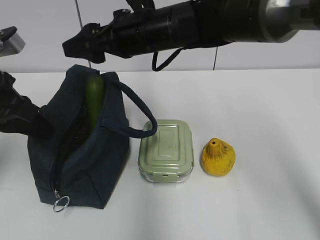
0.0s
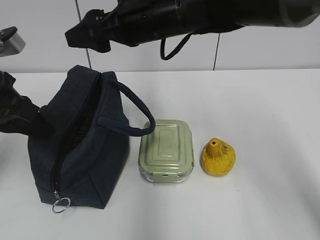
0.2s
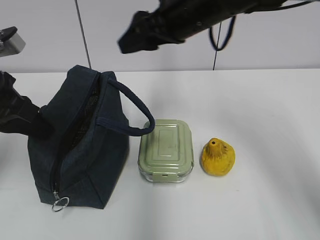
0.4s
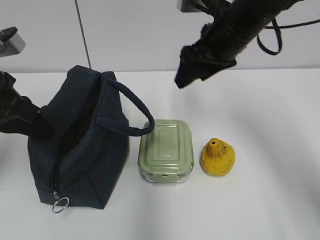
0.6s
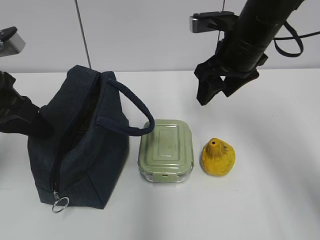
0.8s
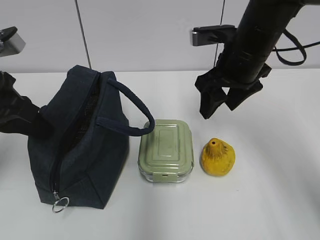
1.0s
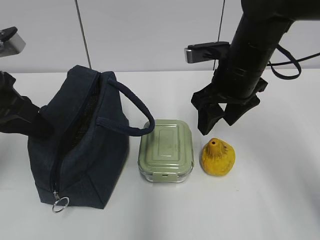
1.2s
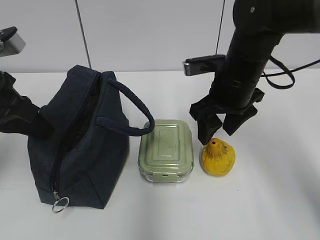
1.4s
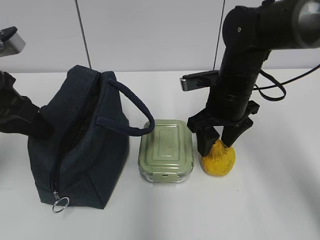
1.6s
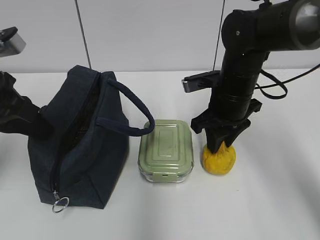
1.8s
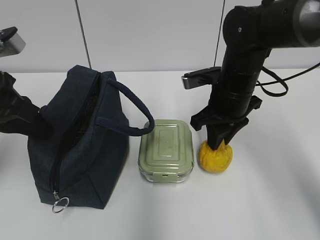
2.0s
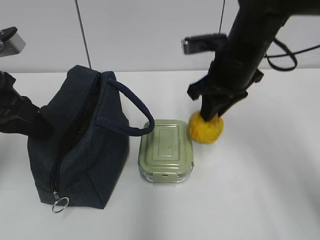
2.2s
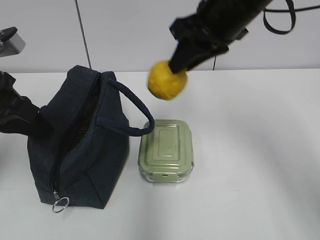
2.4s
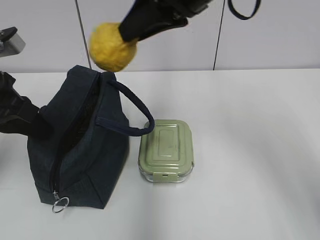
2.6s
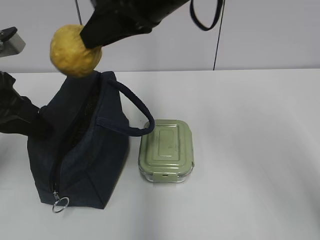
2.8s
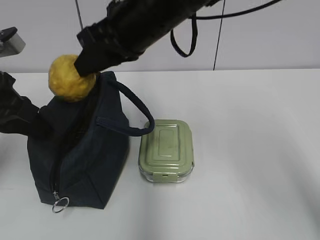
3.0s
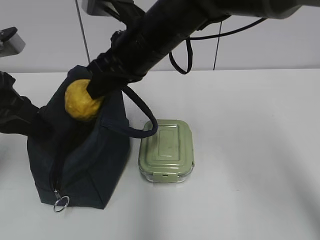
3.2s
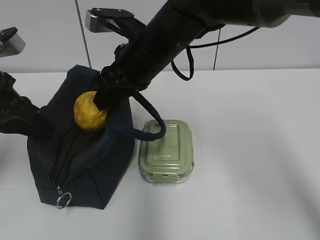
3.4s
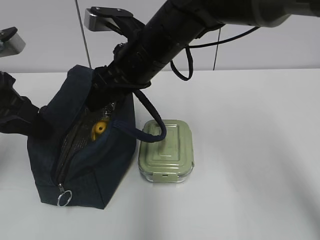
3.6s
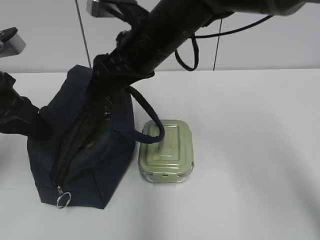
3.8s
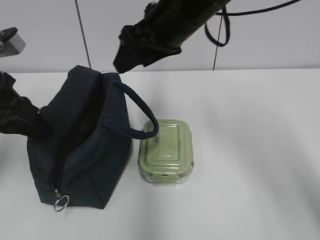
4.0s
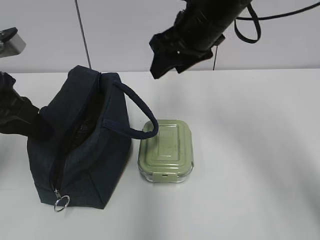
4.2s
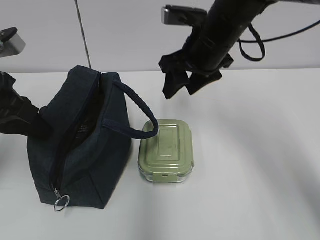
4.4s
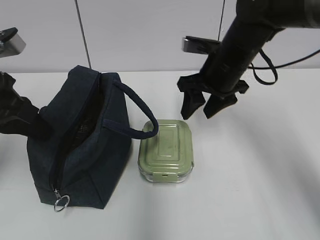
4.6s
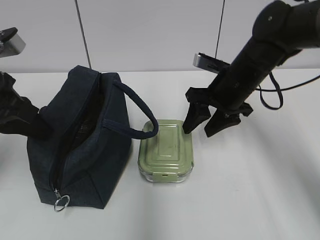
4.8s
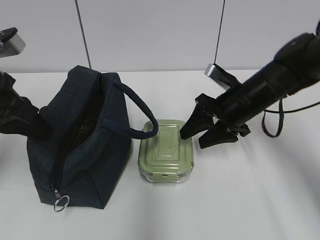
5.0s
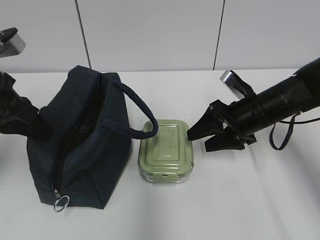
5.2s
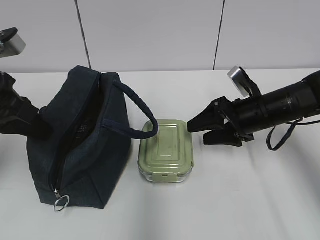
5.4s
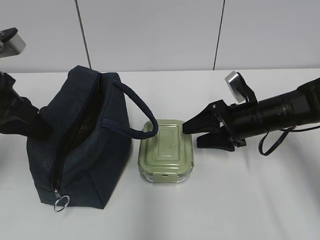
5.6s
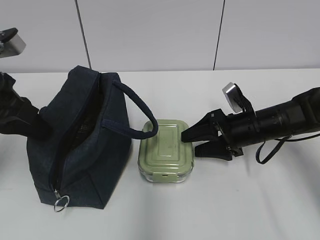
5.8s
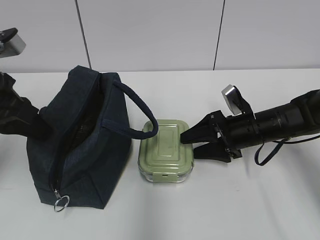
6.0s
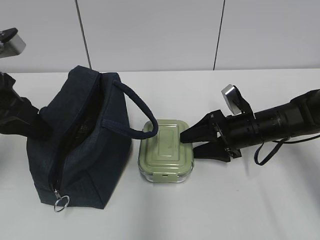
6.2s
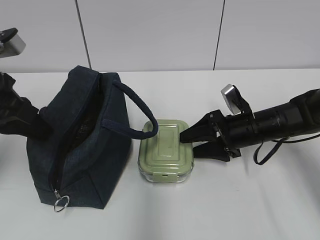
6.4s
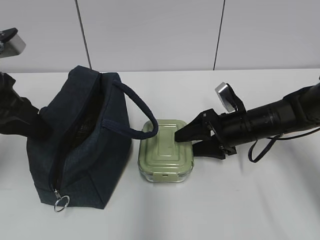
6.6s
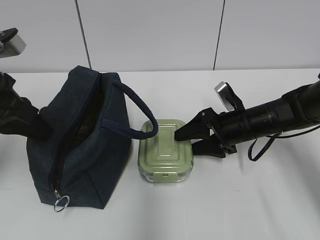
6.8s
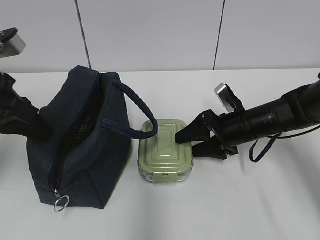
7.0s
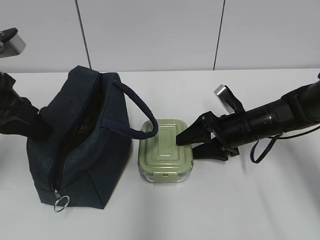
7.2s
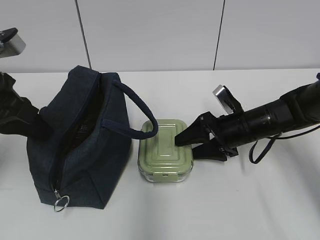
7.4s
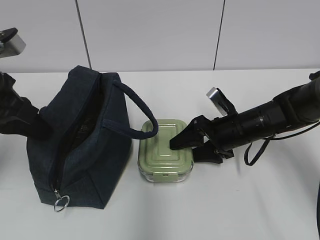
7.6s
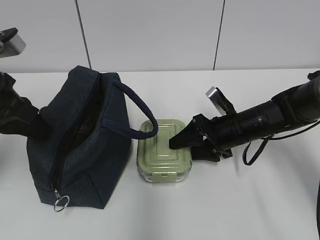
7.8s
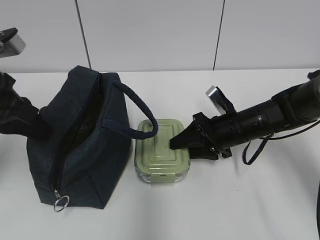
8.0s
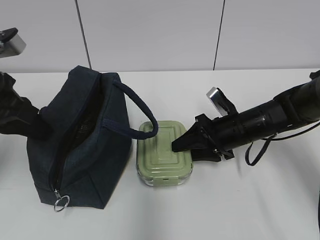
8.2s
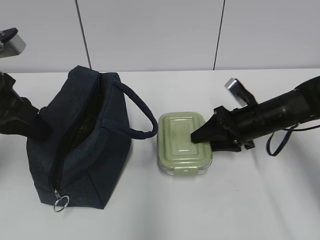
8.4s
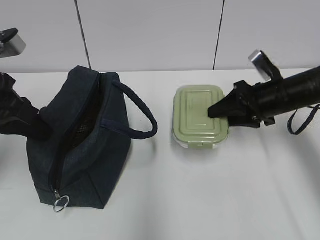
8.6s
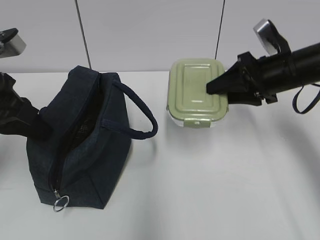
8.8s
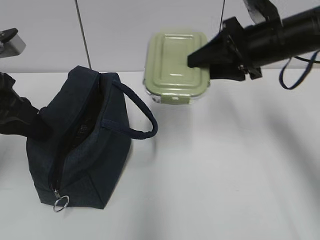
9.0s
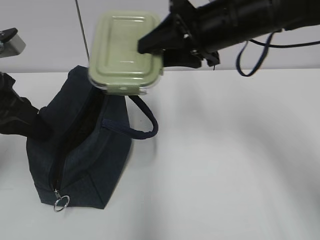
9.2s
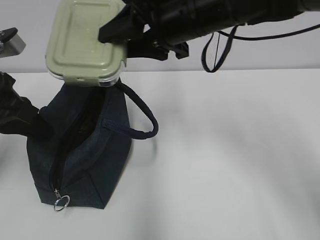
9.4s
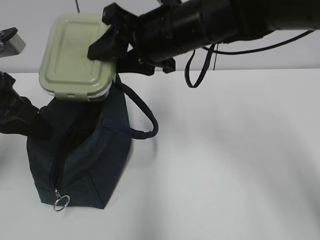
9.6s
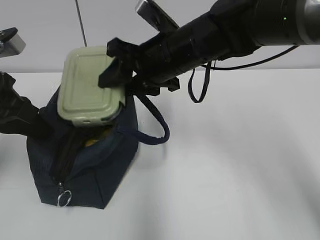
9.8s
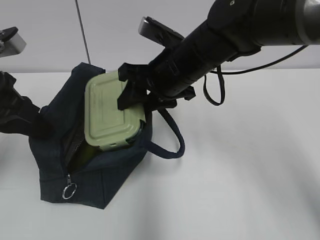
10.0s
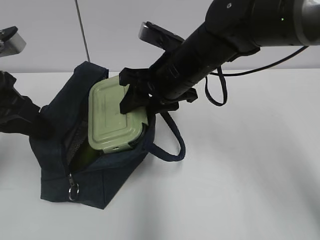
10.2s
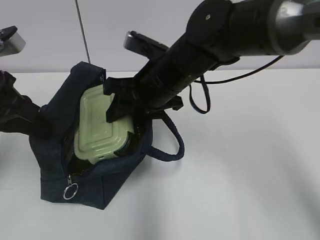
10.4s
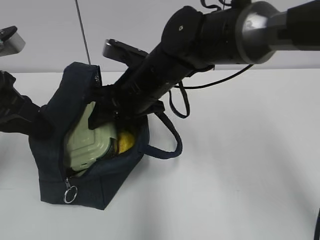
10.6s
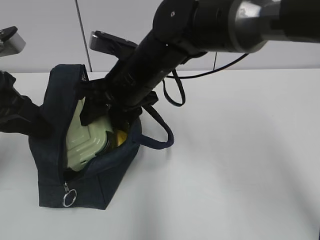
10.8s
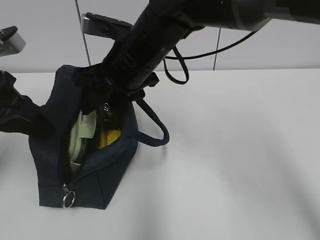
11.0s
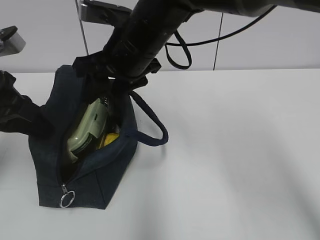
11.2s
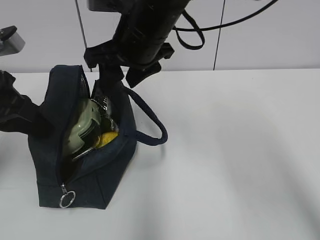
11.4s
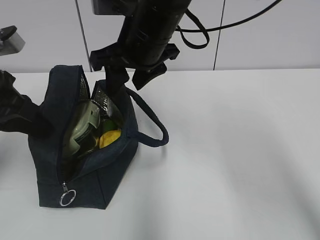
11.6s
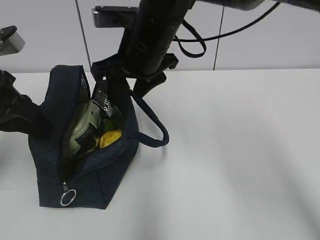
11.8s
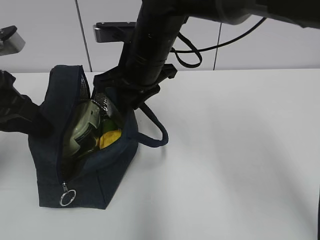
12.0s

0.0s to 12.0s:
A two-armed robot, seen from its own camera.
Step, 0.2s to 1.8s: Grab the pear with your right hand.
Step, 2.2s to 3.6s: Place it into the bag with your right hand.
Step, 3.8s to 8.2s: Grab the lunch box with your right hand.
Step, 11.4s to 12.0s: Grab the lunch bag with your right hand.
0.0s to 1.6s: The right gripper travels to the right and downward by some 15 cm.
1.6s to 3.0s: The right gripper travels upward and to the left by some 20 cm, and closes.
3.0s to 4.4s: The right gripper travels to the right and downward by approximately 10 cm, and opens its fingers.
4.4s to 6.0s: The right gripper moves downward and to the right, about 15 cm.
6.0s to 7.6s: The grippers make only small movements.
7.6s to 9.0s: The right gripper heads upward, covering about 20 cm, and closes.
9.0s to 10.4s: The right gripper heads to the left and downward, covering approximately 15 cm.
10.4s to 12.0s: The right gripper closes up.

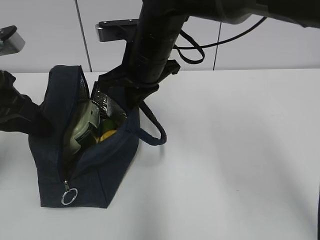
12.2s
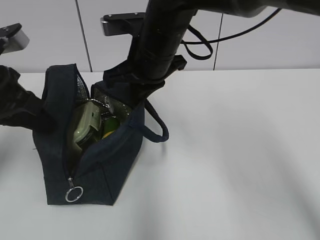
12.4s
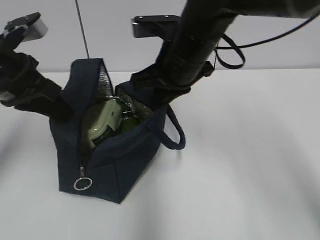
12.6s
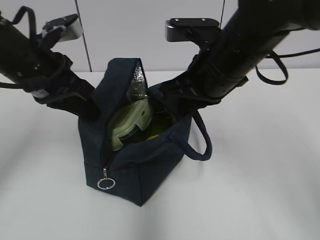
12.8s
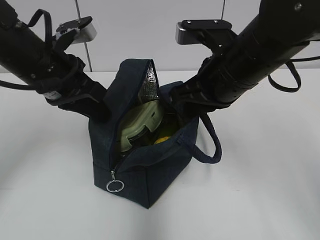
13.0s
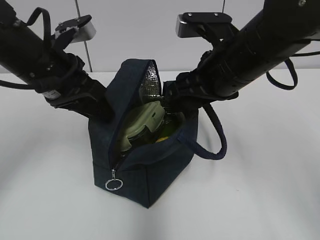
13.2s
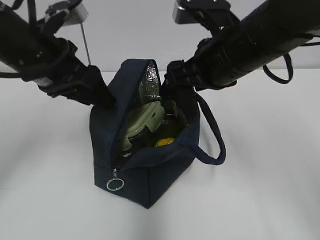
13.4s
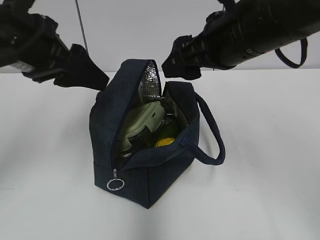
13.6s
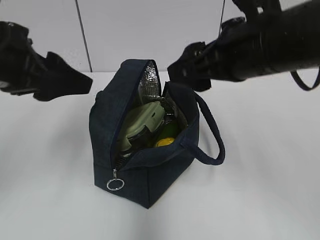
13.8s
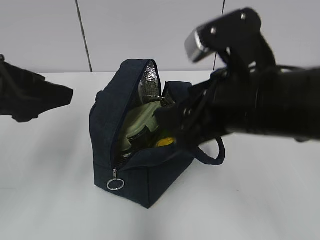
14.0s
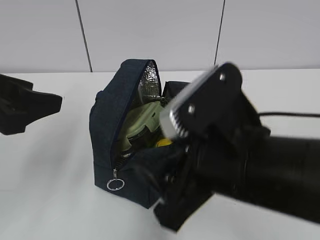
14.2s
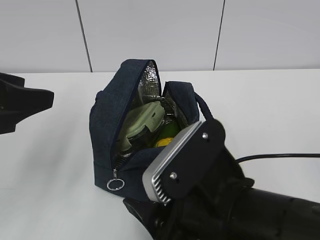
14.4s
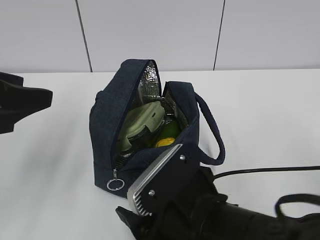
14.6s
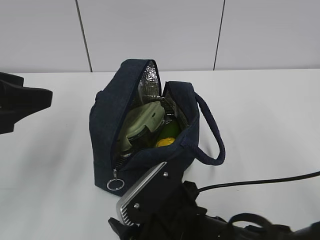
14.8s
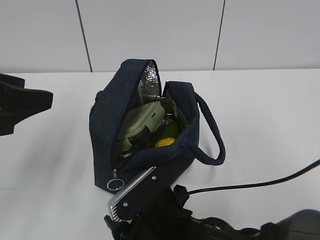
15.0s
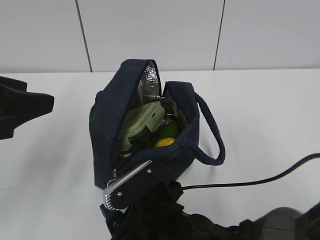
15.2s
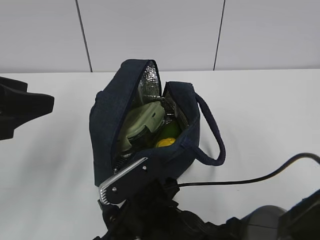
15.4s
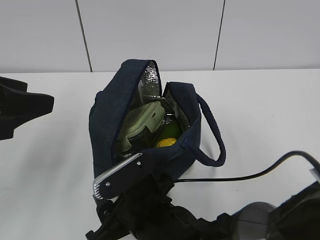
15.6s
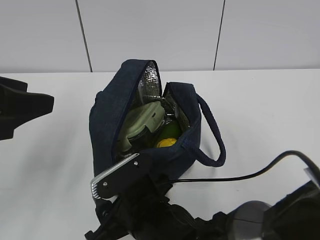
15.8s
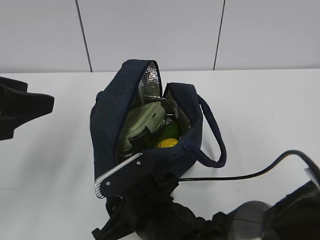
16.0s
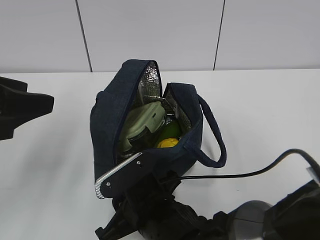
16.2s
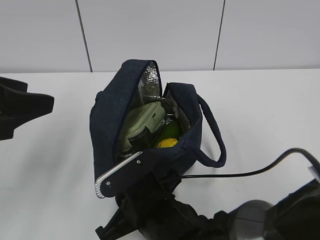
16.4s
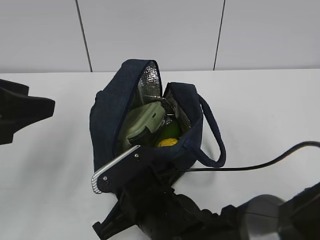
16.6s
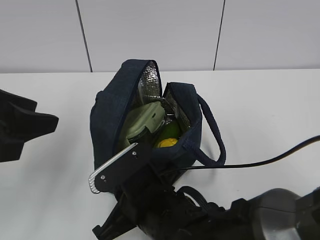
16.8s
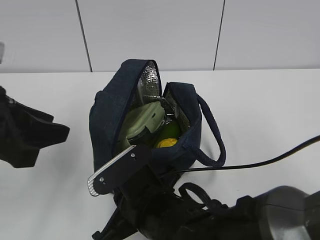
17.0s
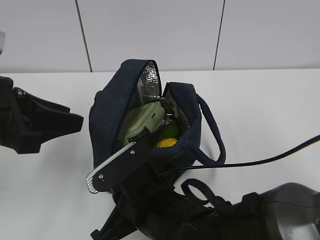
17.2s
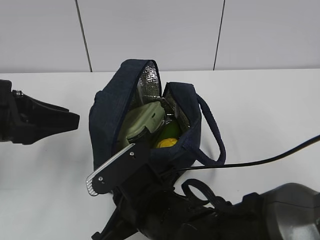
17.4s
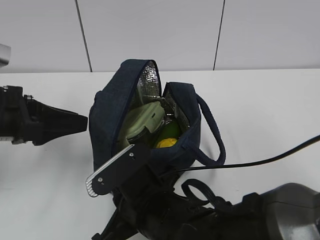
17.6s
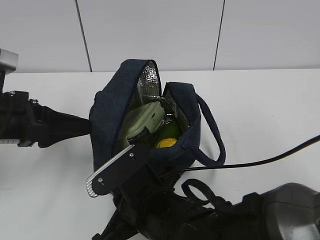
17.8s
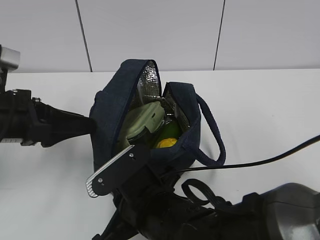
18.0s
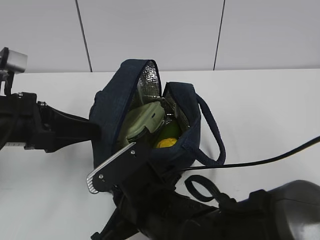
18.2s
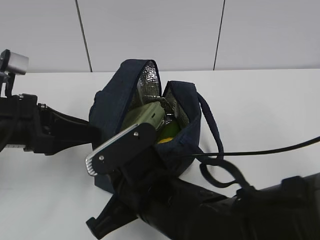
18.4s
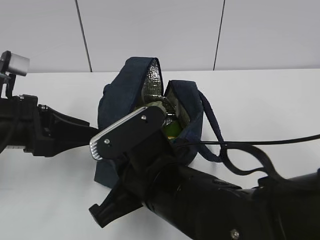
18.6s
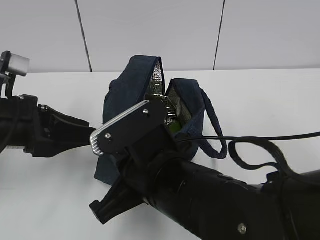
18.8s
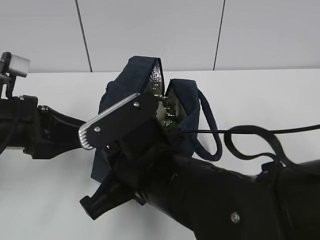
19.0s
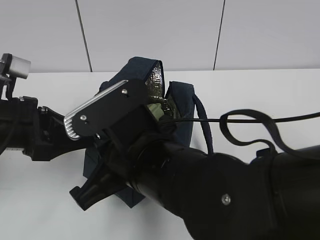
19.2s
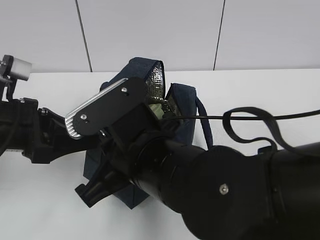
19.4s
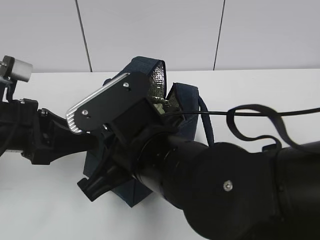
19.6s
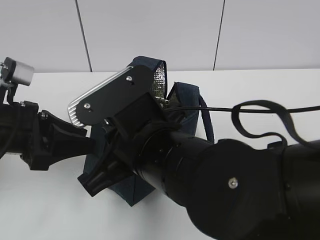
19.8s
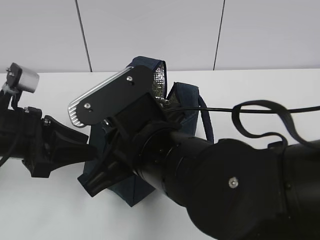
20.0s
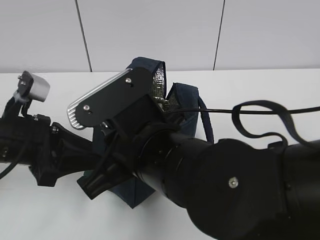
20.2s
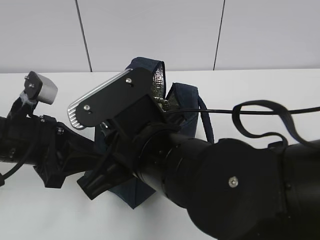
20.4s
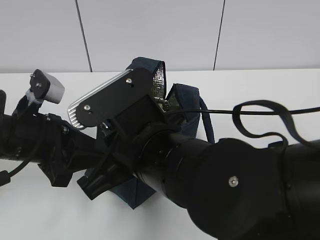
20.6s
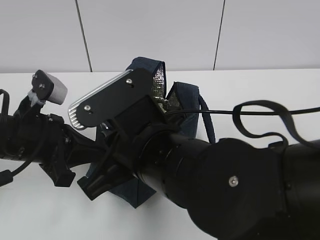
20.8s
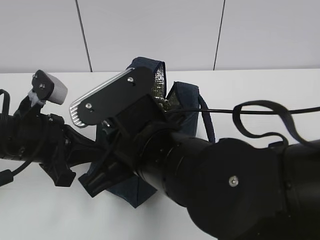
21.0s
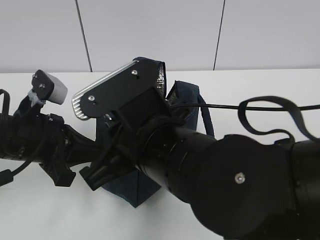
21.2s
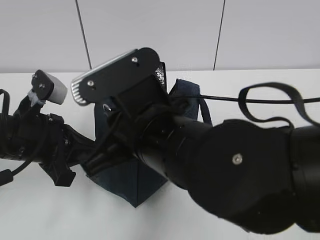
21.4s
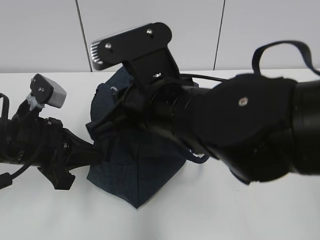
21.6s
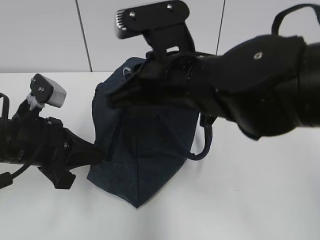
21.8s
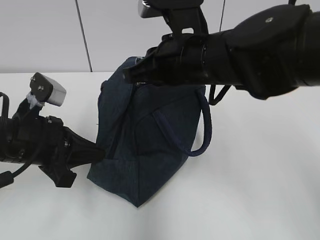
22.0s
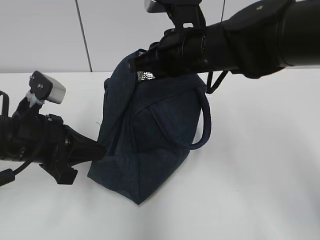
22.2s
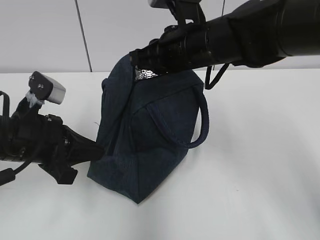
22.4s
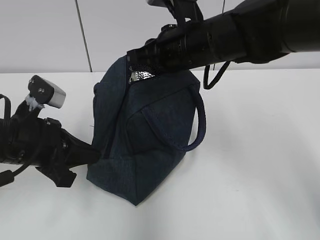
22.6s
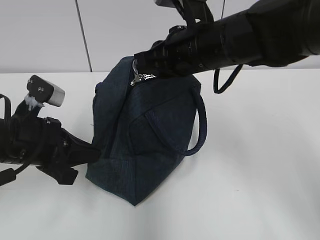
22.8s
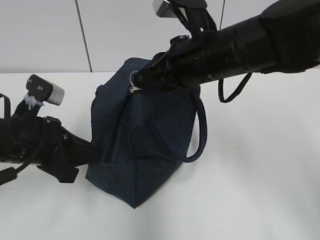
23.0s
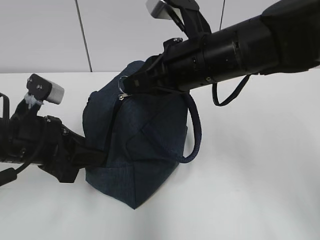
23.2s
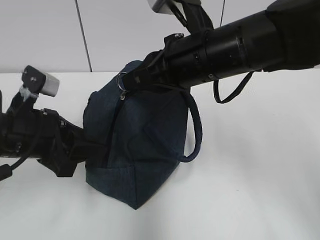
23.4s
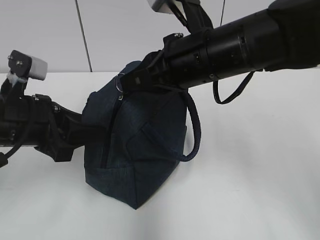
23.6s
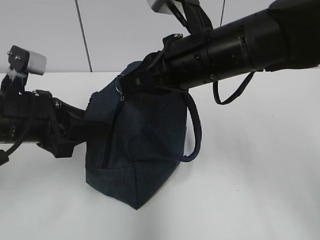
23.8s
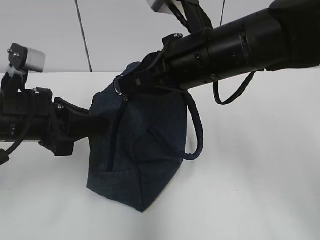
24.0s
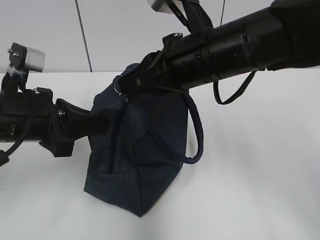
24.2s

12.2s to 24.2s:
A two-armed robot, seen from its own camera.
Step, 12.2s to 13.2s: Move the lunch bag to the right.
Step, 13.4s to 20.6s: Grab the lunch bag with your left hand.
12.2s to 13.8s: The right gripper travels backward and to the right by about 15 cm, and opens. The left gripper moves approximately 5 cm, and opens its fingers.
13.8s to 15.2s: The right gripper is displaced downward and to the left by about 25 cm. The left gripper is displaced backward by roughly 5 cm.
15.2s to 16.6s: The right gripper closes its fingers.
16.6s to 18.2s: The left gripper shifts about 10 cm downward and forward.
18.2s to 19.8s: The right gripper travels upward by roughly 10 cm.
19.8s to 21.2s: The left gripper closes up.
21.2s to 22.6s: The right gripper is displaced forward and to the right by some 15 cm.
22.6s to 24.2s: The right gripper goes about 5 cm backward. The left gripper opens and closes again.
